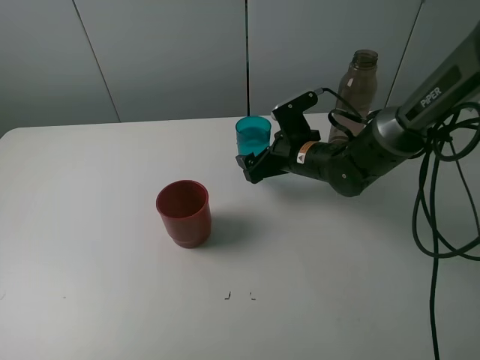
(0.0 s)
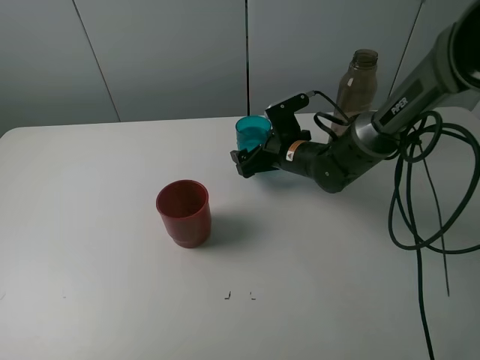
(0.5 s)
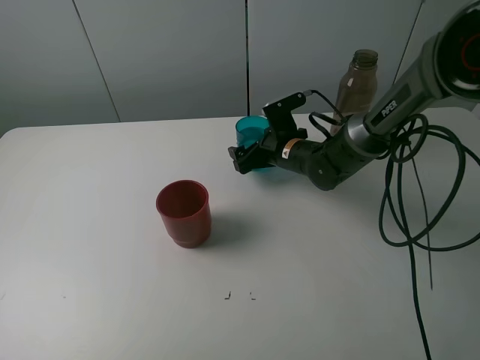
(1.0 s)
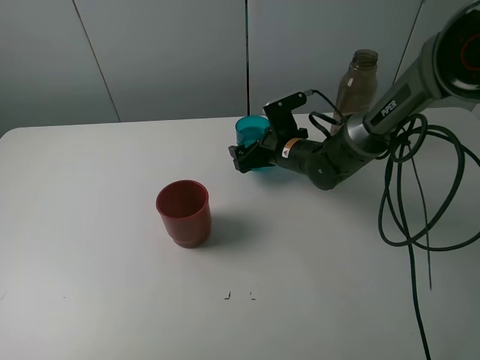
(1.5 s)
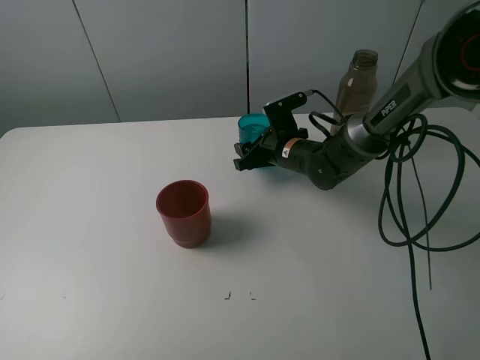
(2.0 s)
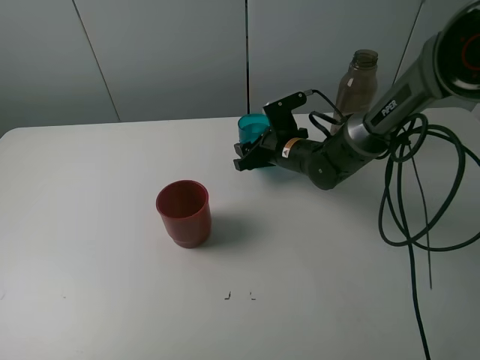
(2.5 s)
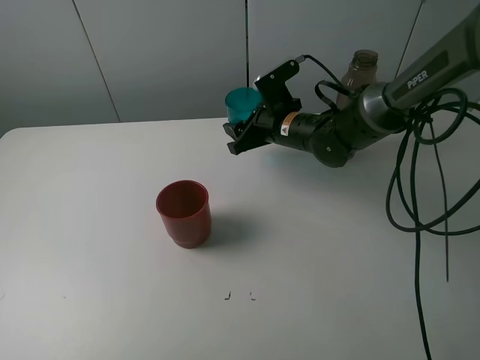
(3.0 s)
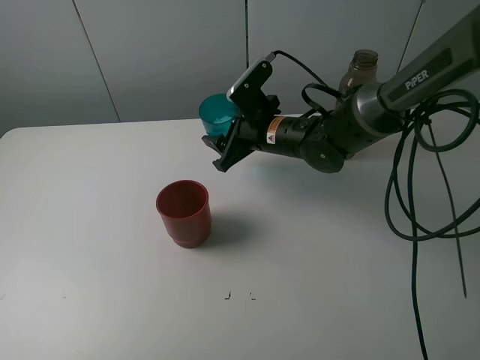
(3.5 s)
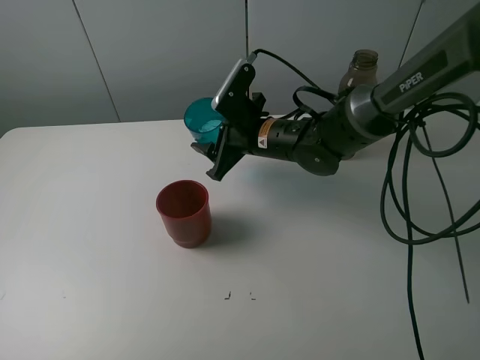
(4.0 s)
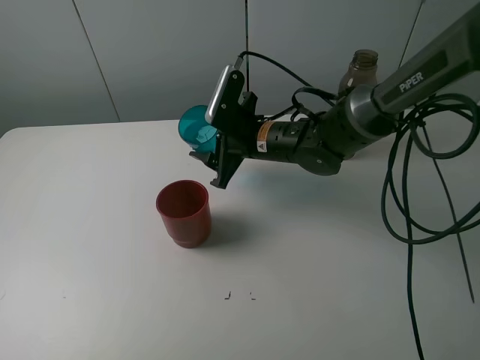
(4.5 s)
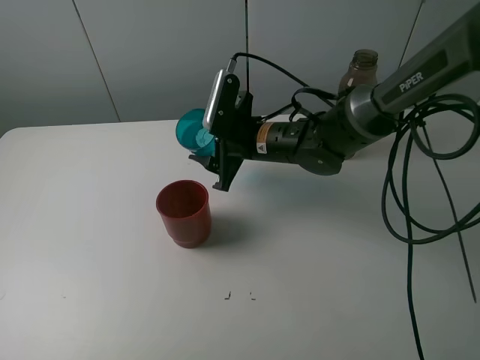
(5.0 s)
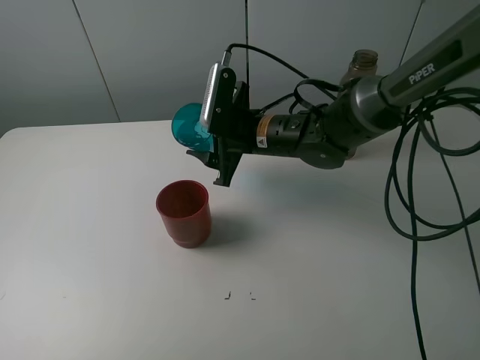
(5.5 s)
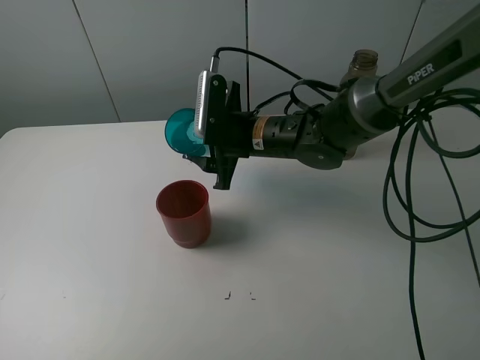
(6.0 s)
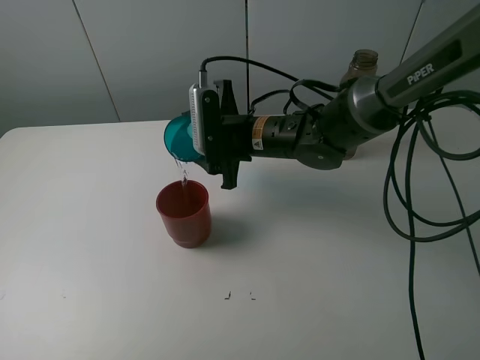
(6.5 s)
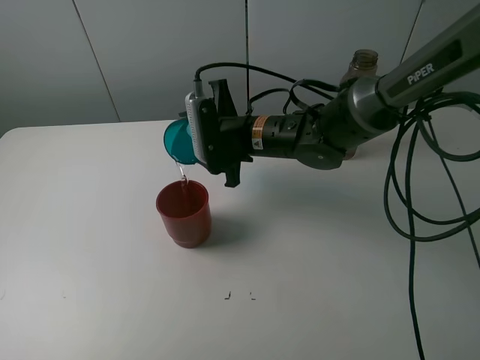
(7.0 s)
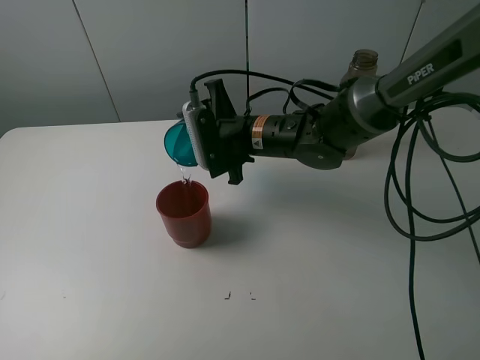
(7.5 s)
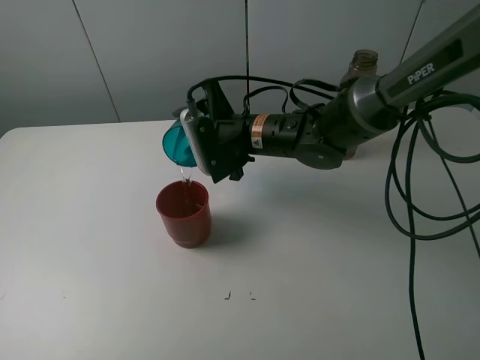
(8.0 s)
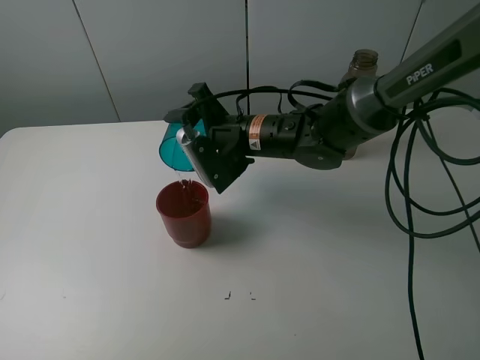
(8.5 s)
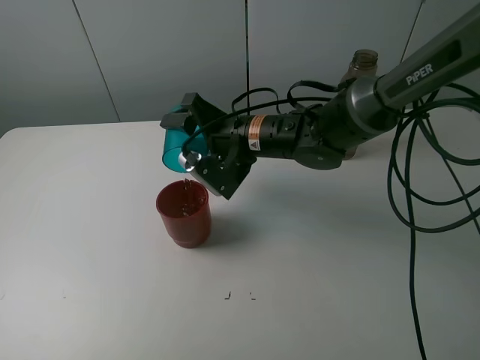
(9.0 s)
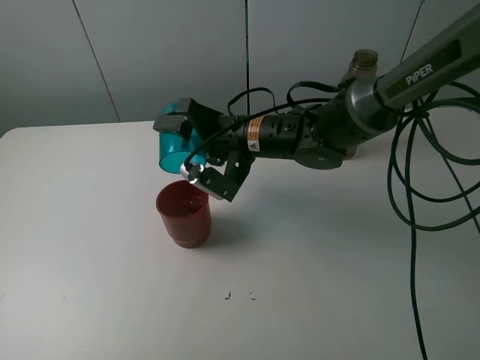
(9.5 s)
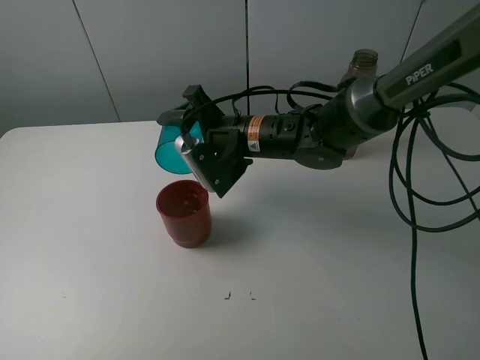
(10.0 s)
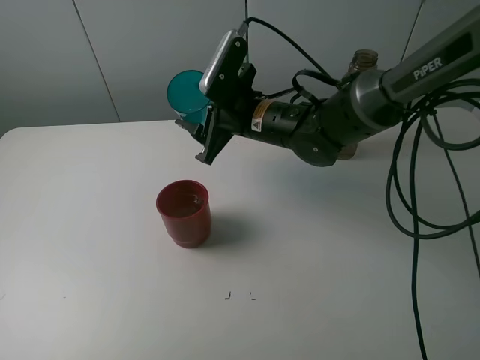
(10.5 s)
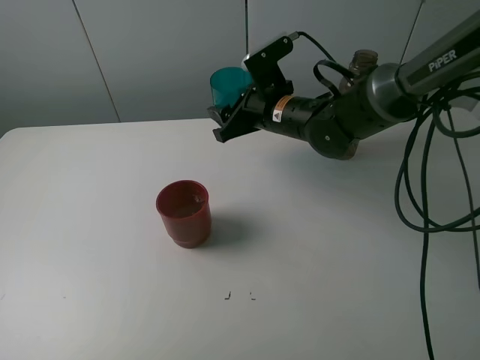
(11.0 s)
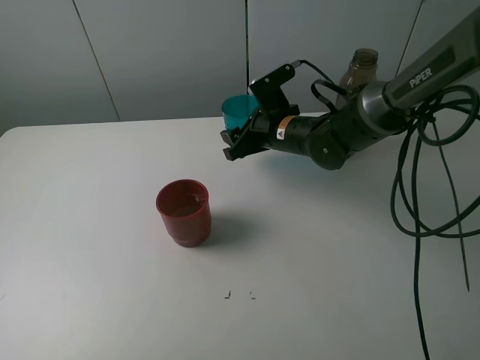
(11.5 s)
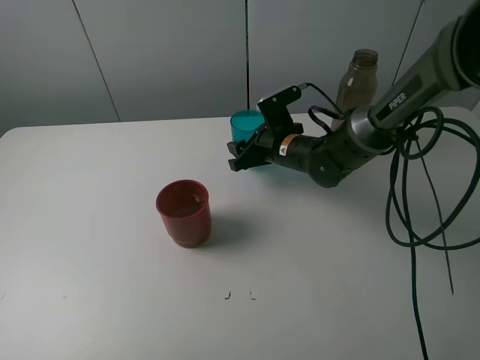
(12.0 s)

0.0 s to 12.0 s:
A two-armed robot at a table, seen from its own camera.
Task of the whole recording: pick up the bottle and pour water into the cup, then pick up the cup containing water and pour it into another cup.
Step, 0.0 to 2.0 s: Grasp the blue cup with the right gripper.
Step, 2.5 to 9.0 s: Pour water from blue cup to red cup with the right gripper.
0.0 to 2.0 s: The right gripper closes its fingers.
2.0 to 4.0 s: The right gripper shifts roughly 10 cm upward and to the left.
10.0 to 12.0 s: The right gripper travels downward, to the right and forward by some 10 cm.

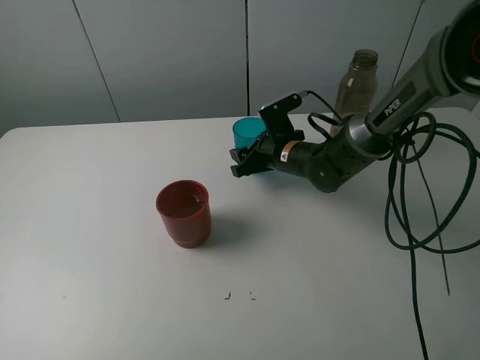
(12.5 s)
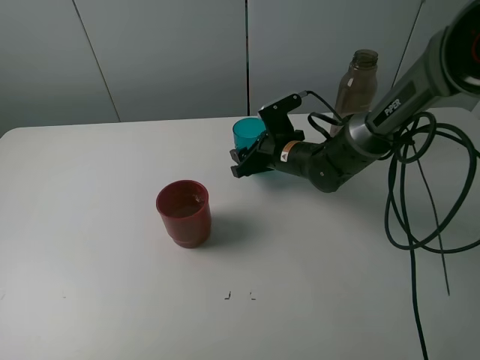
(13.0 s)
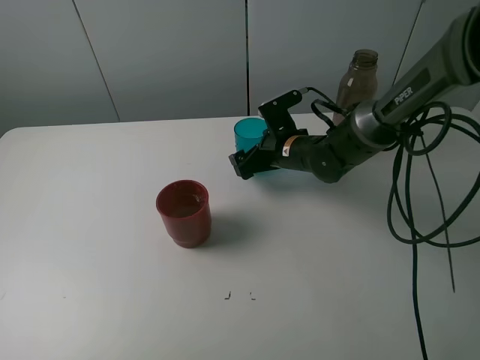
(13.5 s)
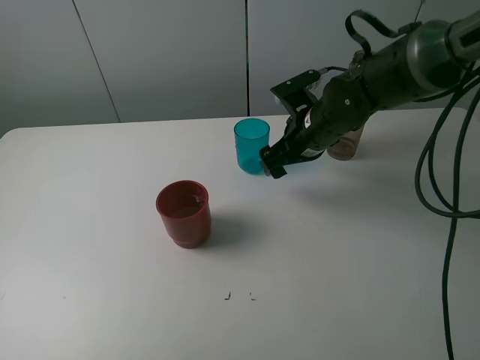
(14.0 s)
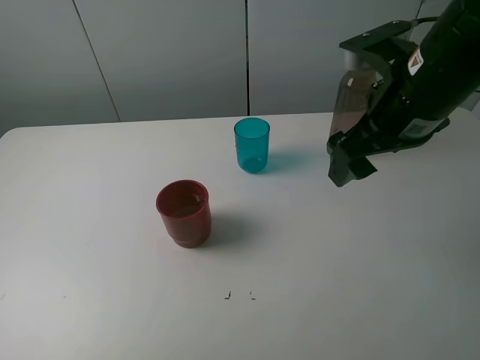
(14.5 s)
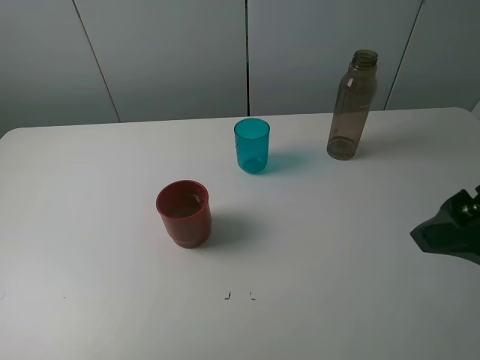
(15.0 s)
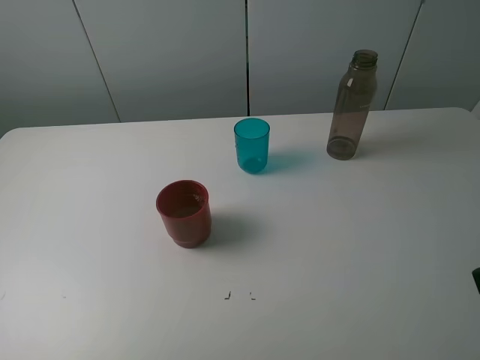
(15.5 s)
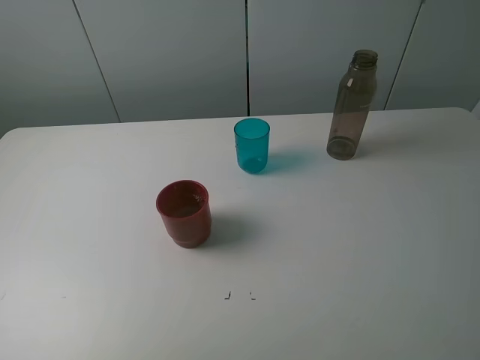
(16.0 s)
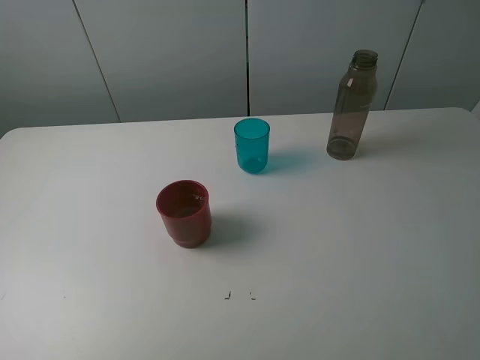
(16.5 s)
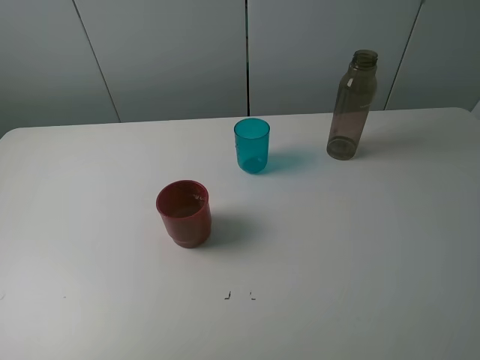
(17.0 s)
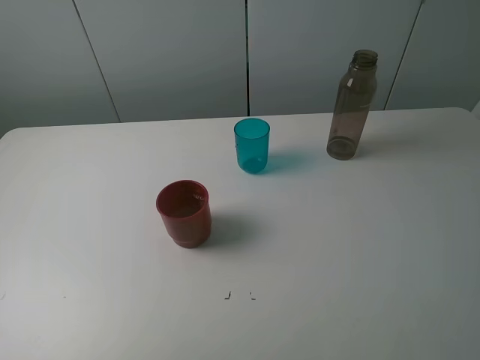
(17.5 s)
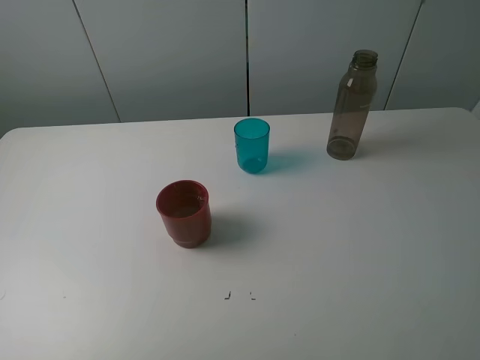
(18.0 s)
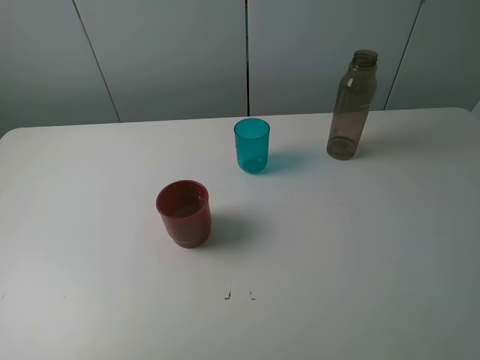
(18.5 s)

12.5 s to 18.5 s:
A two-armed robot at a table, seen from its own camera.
Task of the whole recording: pick up the bottle and pour water into the cup, then pick up the cup containing water and pour it into another cup.
12.5 to 14.5 s: The right gripper shifts roughly 25 cm upward, backward and to the right, and opens up.
14.5 to 16.5 s: The right gripper heads backward and to the right, covering approximately 25 cm.
16.5 to 18.5 s: Neither gripper changes place.

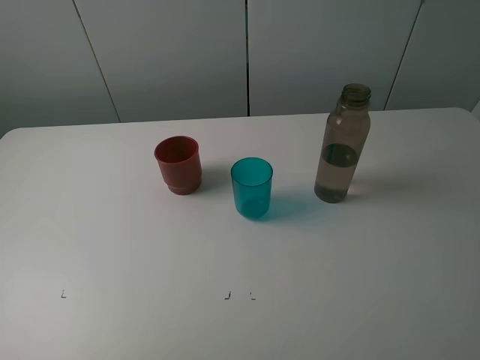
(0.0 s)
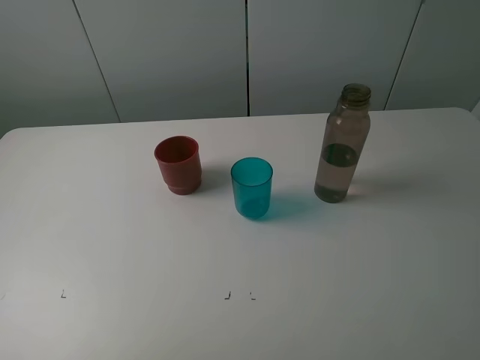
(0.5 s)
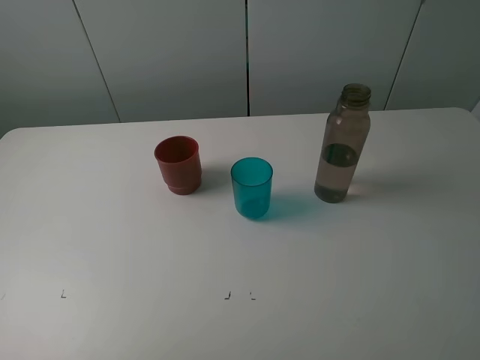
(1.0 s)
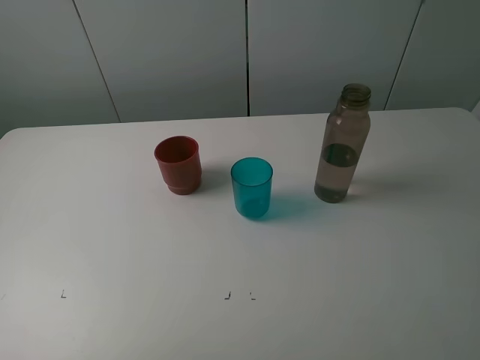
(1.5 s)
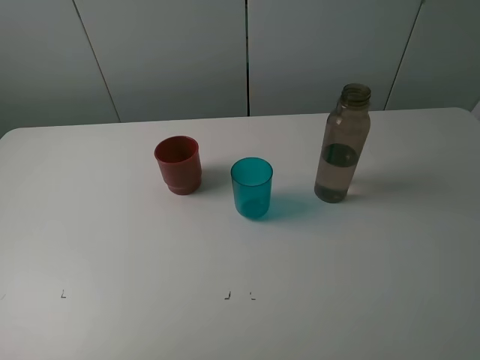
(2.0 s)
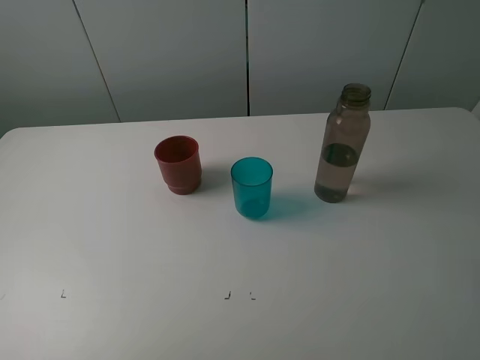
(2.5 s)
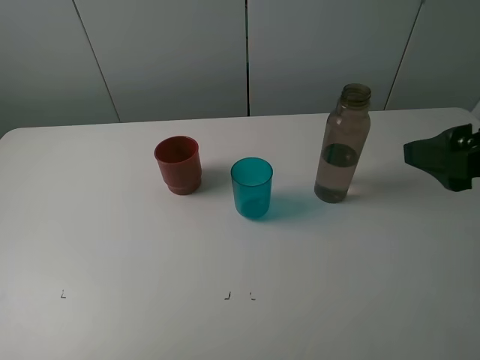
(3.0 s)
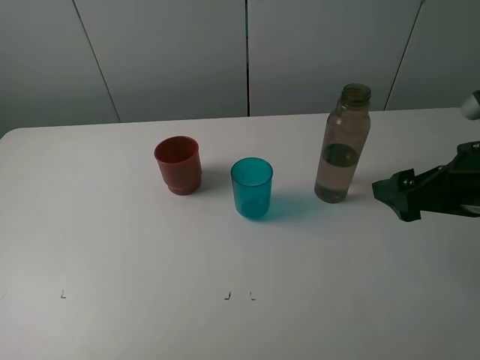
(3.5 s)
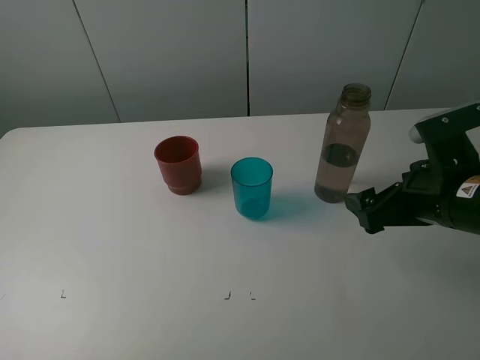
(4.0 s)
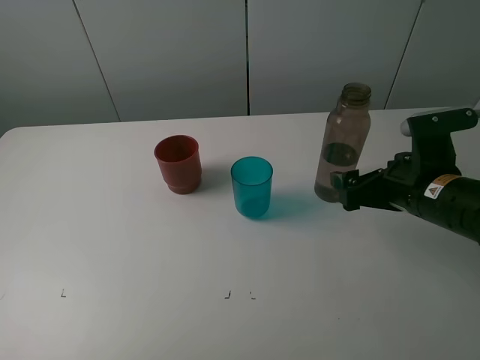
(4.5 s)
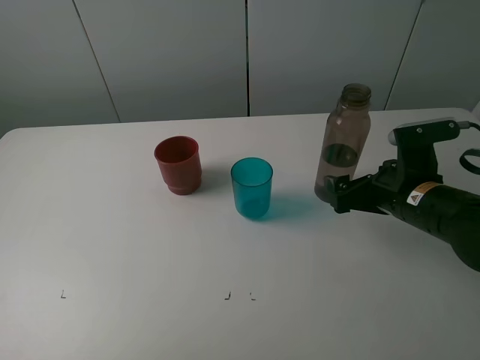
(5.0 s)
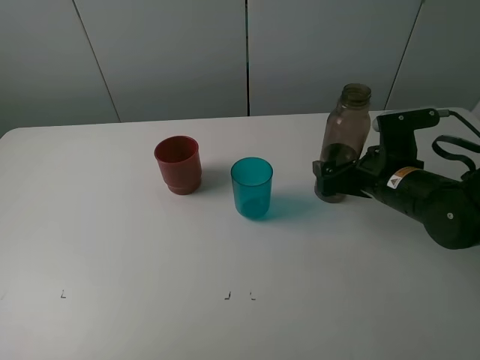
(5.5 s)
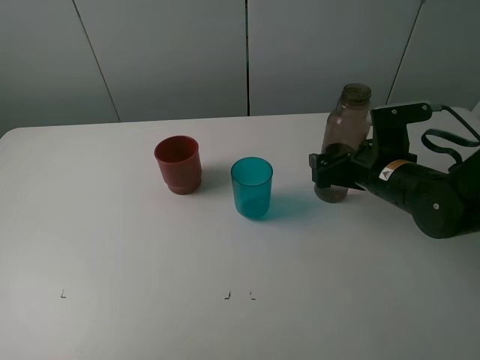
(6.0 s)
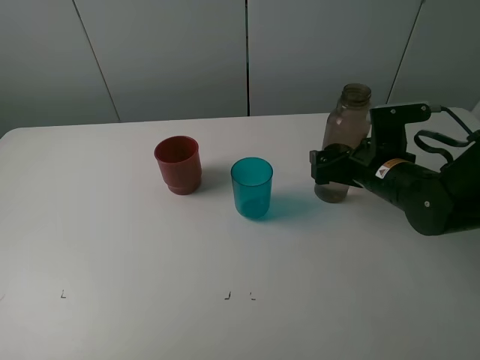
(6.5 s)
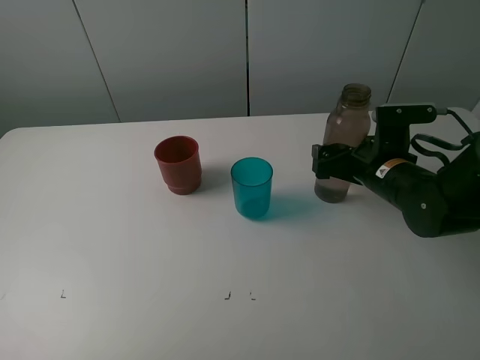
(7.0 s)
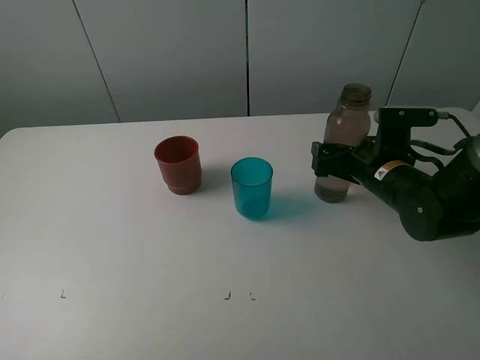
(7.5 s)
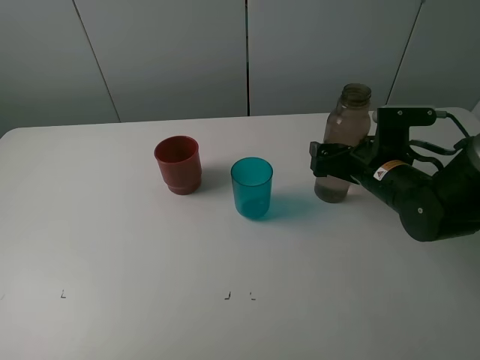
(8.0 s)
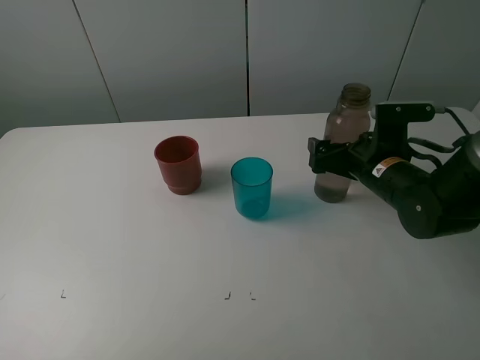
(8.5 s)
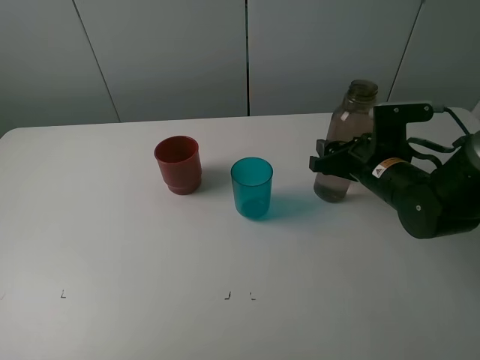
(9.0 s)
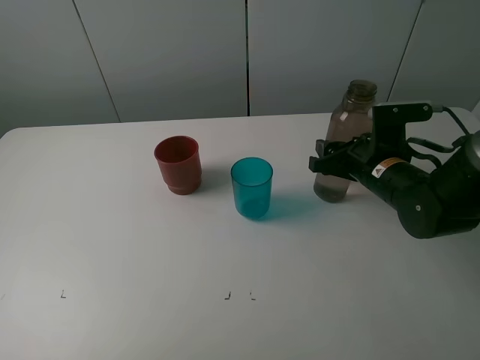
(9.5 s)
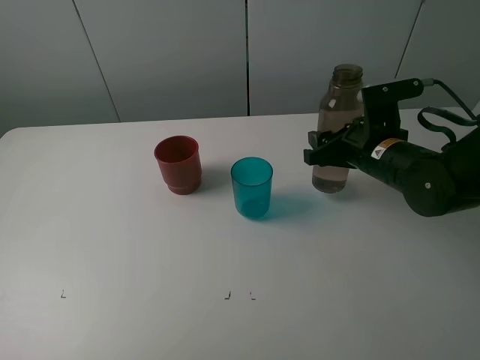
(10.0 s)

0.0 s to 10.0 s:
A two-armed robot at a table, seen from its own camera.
Task of the whole recording: pick up the bottle and pour water into the cup, then pick up the cup containing water and pour it into another cup.
Step, 0.0 to 8.5 s: Grasp the brown bottle with the right gripper.
0.0 to 2.0 s: Both grippers stay put.
2.0 to 4.0 s: The right gripper is displaced forward and downward by some 25 cm.
4.0 to 6.0 s: The right gripper shifts about 10 cm forward and downward.
6.0 to 8.0 s: There are only small adjustments of the grippers.
8.0 to 10.0 s: The right gripper closes up.
